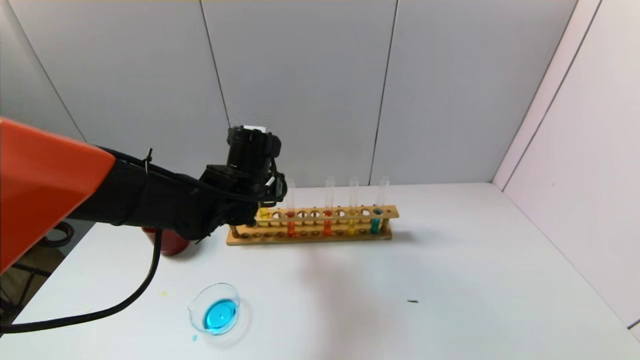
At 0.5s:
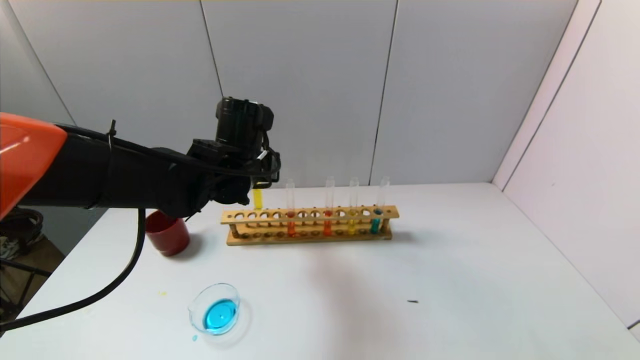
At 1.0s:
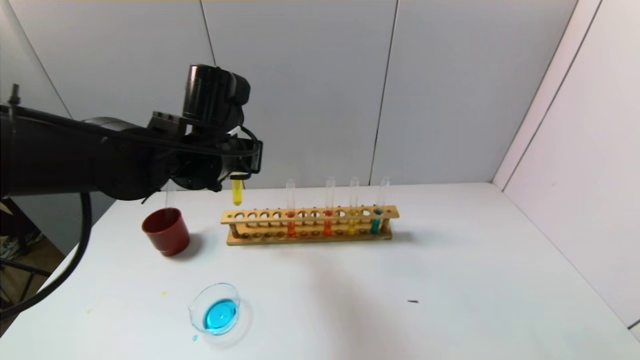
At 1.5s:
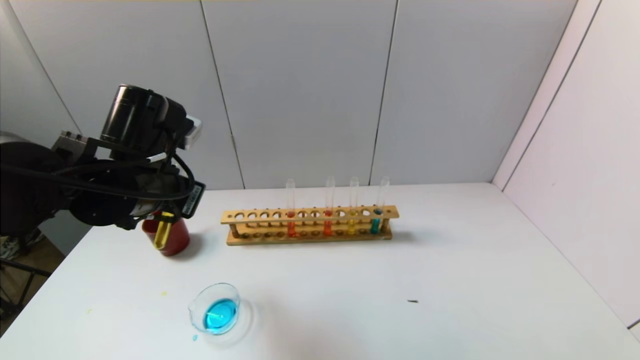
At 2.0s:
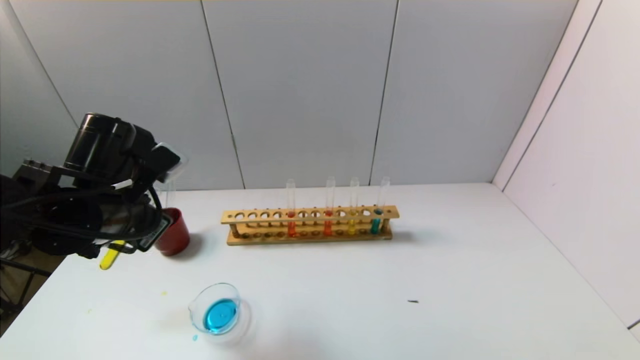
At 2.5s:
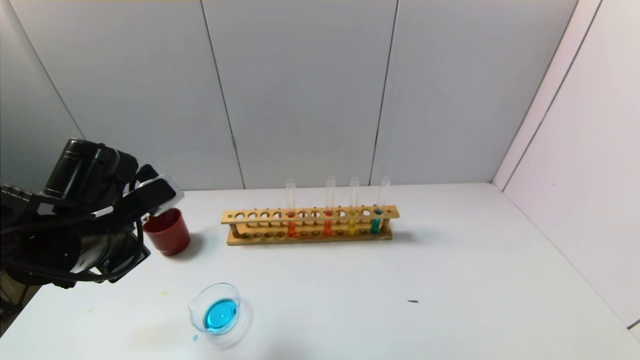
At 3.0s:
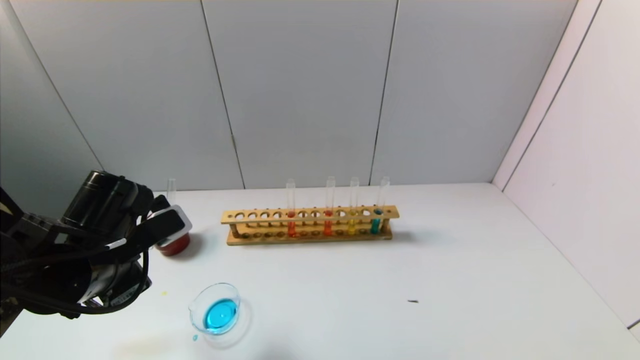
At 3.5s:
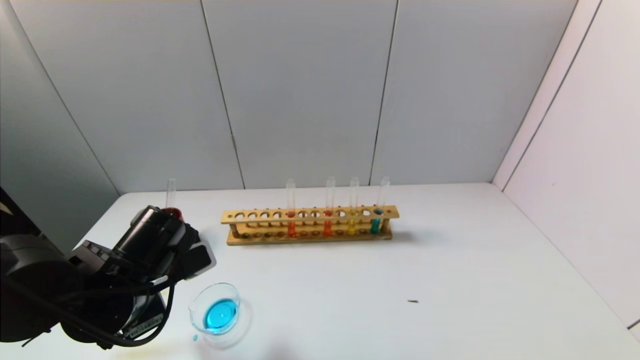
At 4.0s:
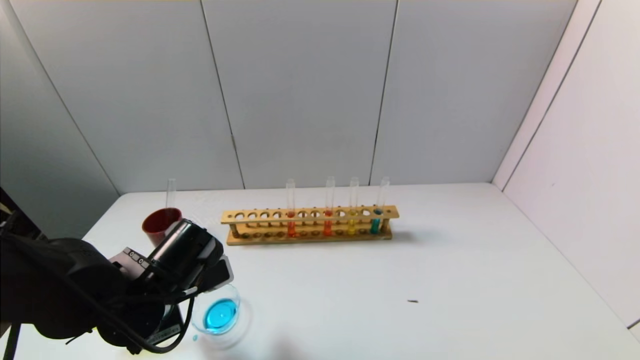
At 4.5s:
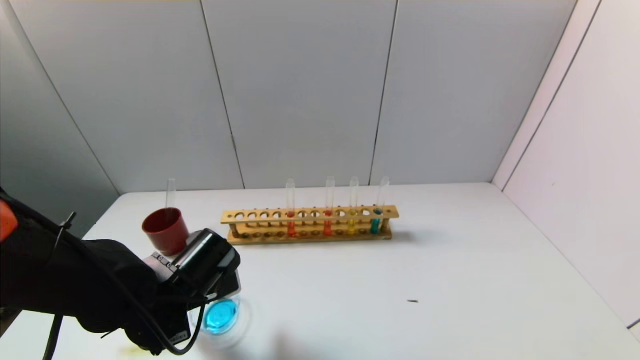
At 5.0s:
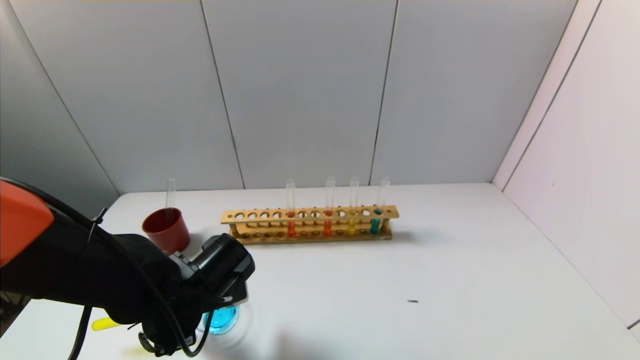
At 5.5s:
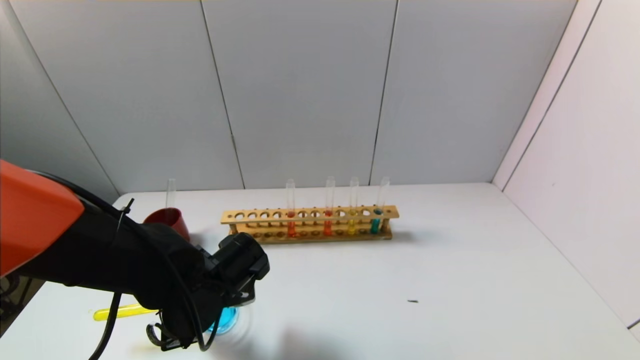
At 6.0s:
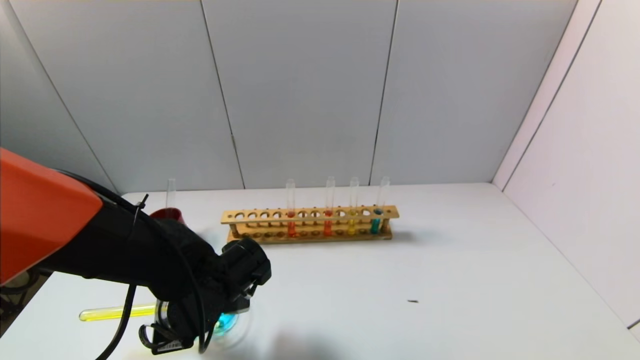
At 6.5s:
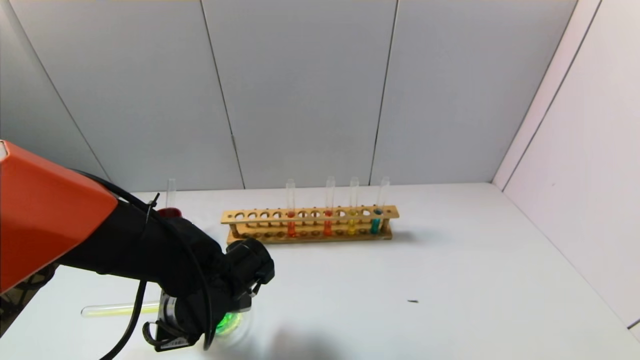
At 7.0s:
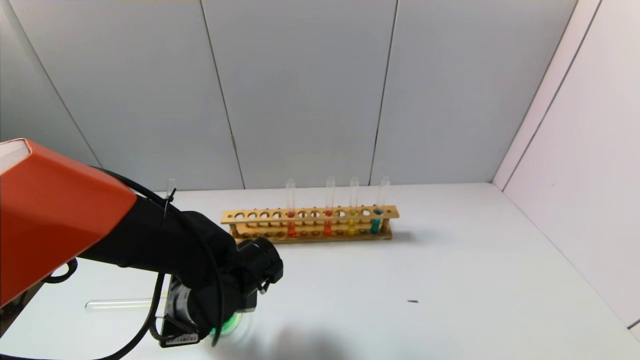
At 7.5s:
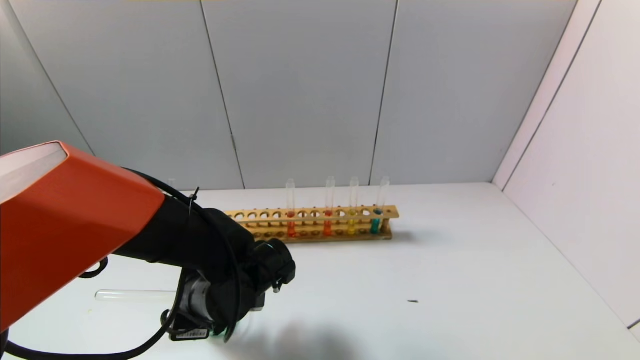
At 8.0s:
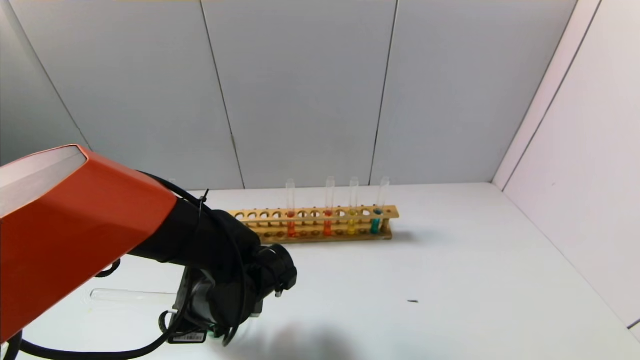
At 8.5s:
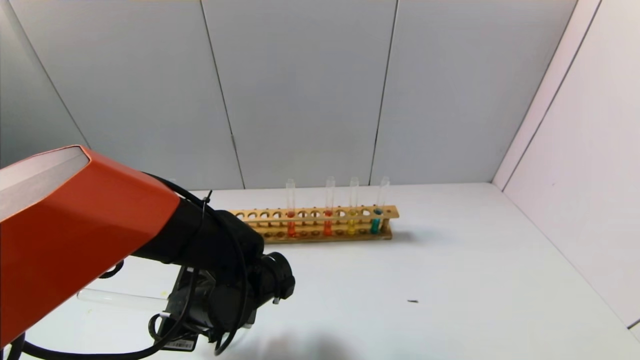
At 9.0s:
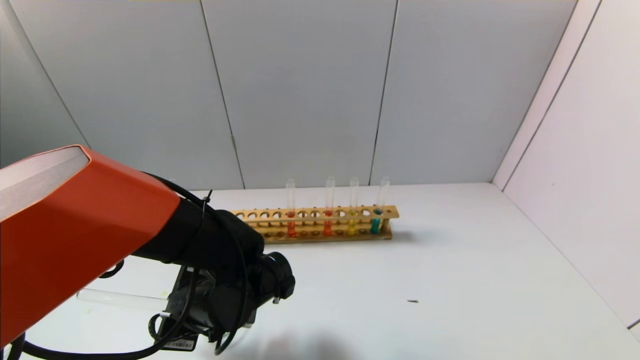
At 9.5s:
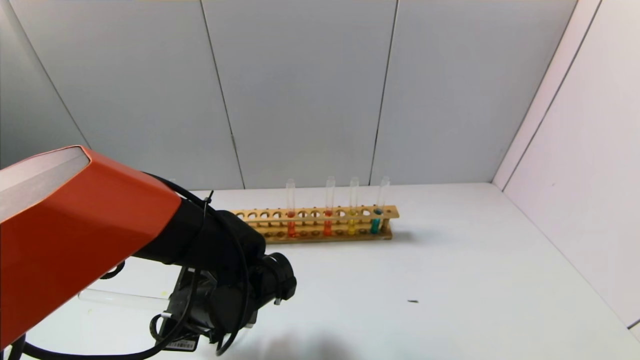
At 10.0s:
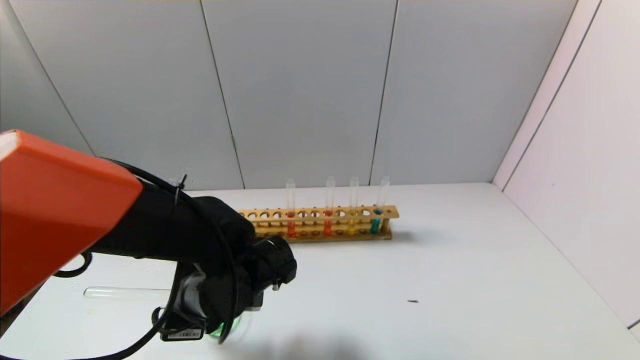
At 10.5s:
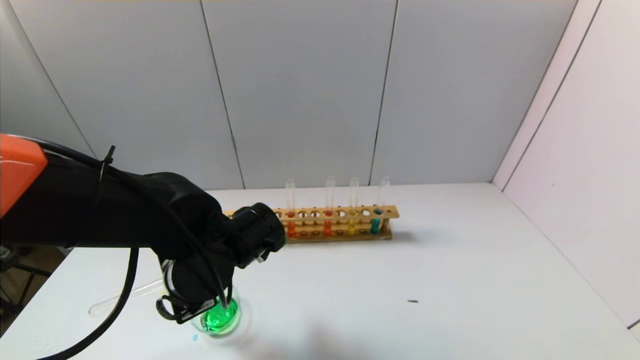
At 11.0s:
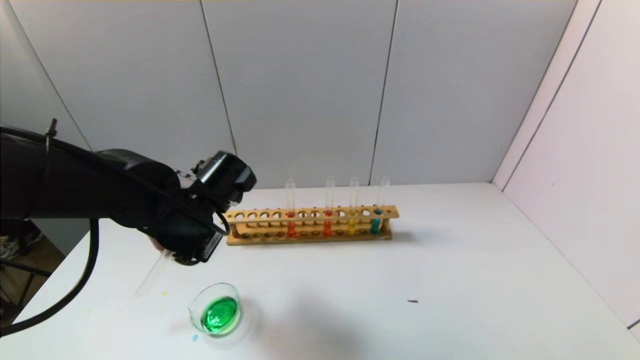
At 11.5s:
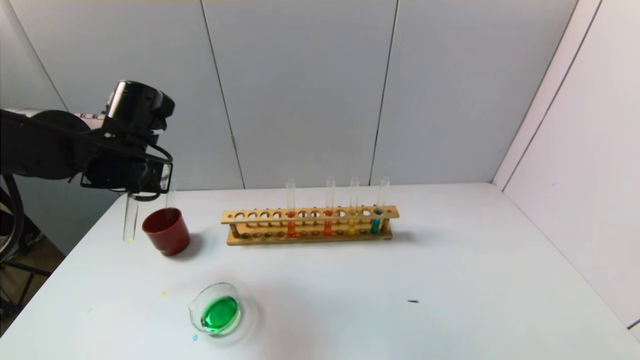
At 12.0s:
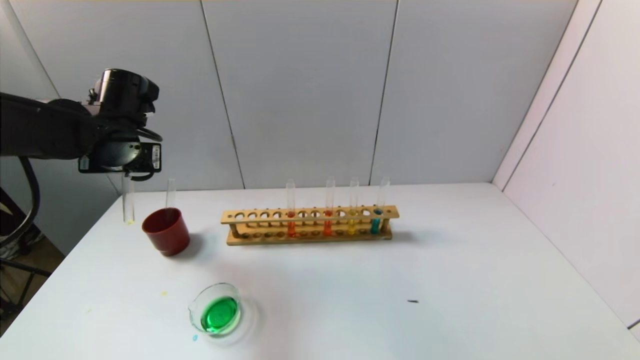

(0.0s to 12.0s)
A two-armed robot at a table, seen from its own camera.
Task of the whole recording: pick up the test tube with yellow pigment and the test tube with blue pigment by grippers and pour them into the beaker.
Step, 0.0s - 8.0s: Pour the yellow reagent into the graduated cylinder with the left gripper.
0.0s - 2.0s: The left gripper travels to the left and backward by about 15 cm.
2.0s - 4.0s: The left gripper goes roughly 10 cm downward.
6.0s - 10.0s: The grippers stay close to where they were, moving slightly.
10.0s - 12.0s: The left gripper is displaced to the left, upward and forward by roughly 25 cm.

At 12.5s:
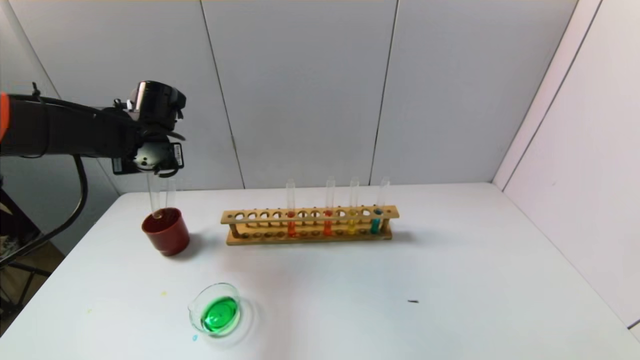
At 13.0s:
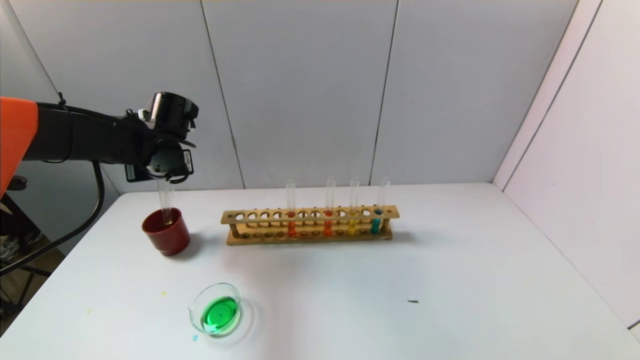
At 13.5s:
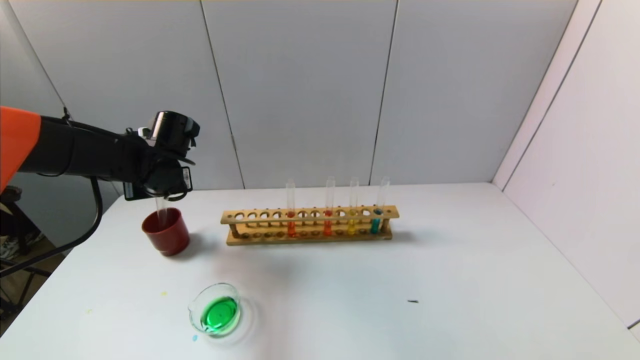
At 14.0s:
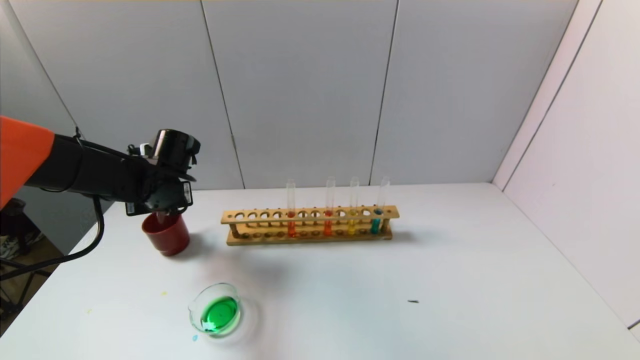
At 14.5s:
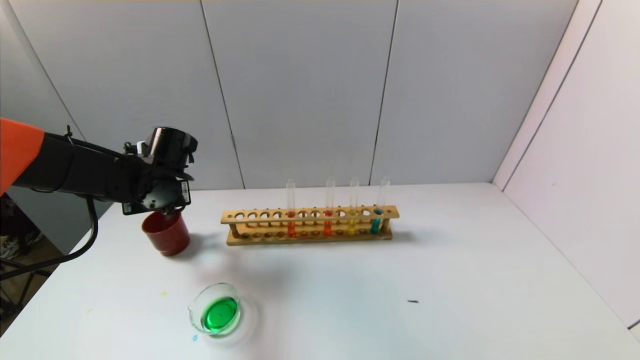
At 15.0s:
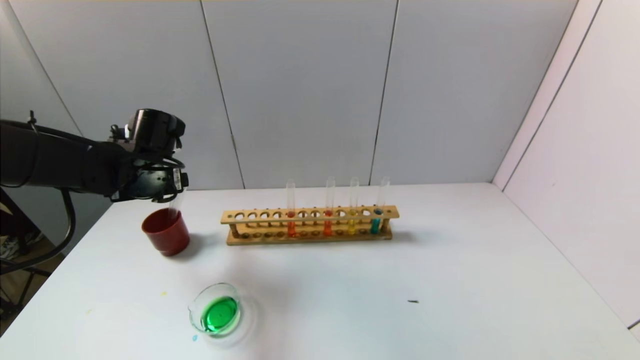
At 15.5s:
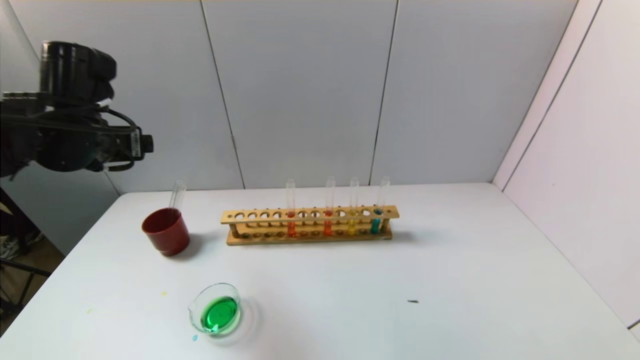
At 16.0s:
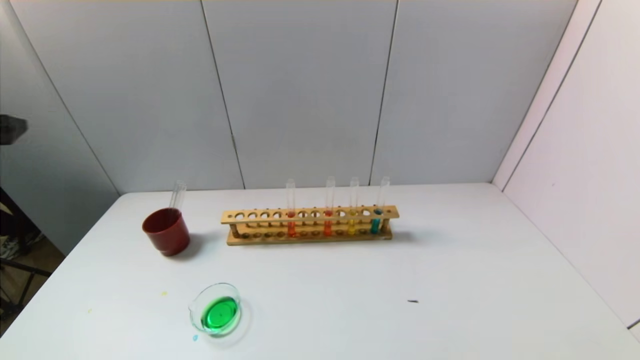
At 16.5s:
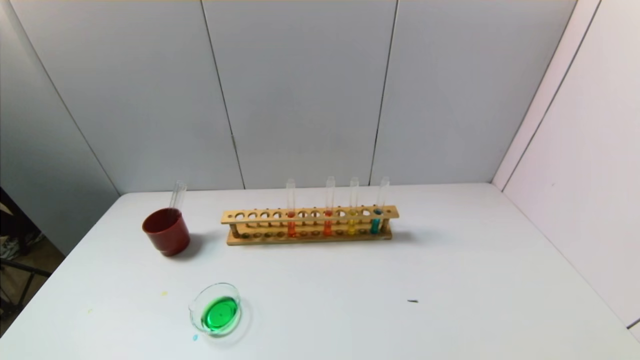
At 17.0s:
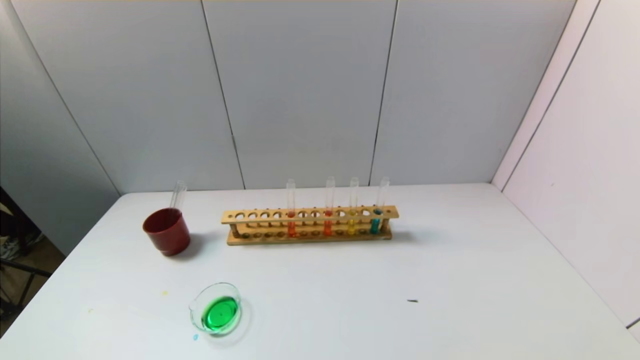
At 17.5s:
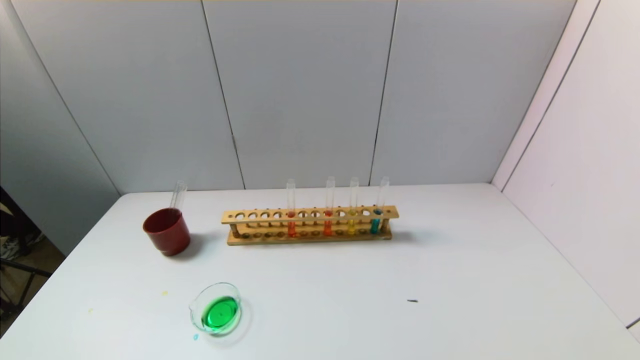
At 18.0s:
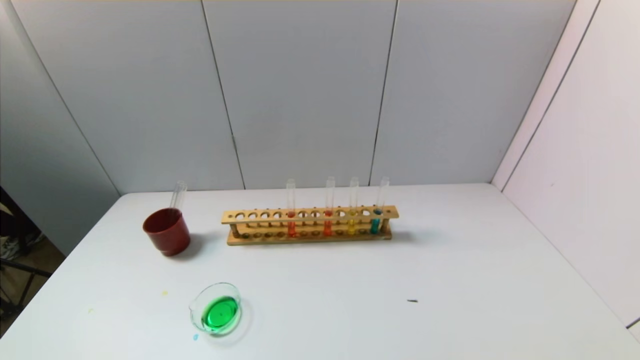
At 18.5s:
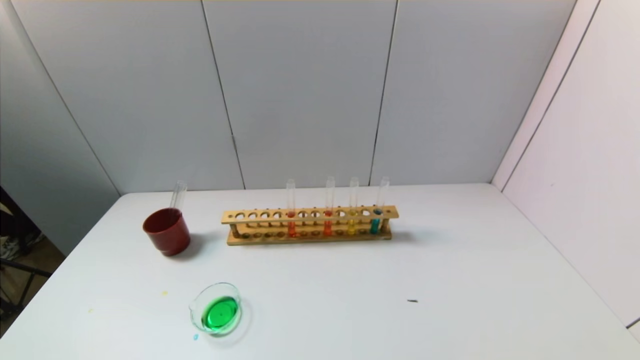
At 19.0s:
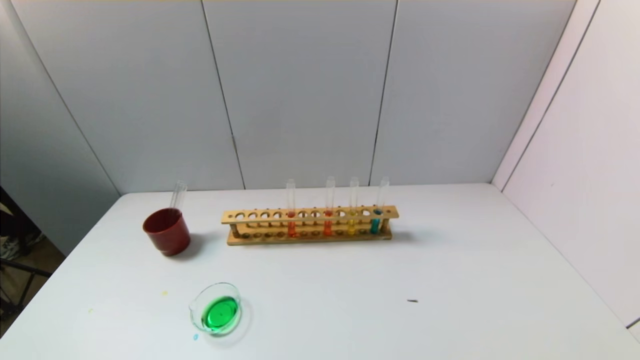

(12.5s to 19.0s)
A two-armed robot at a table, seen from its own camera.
Task of the whole recording: pick up the test tube with yellow pigment and the test tube with blue pigment by grippers and pour them into the beaker.
Step, 12.5s - 14.5s: Place the test tube into the brown cup with the left gripper.
12.5s - 14.5s: The left gripper is displaced downward by about 5 cm, and opens its fingers.
14.5s - 17.0s: The left gripper goes roughly 40 cm backward, and opens up.
